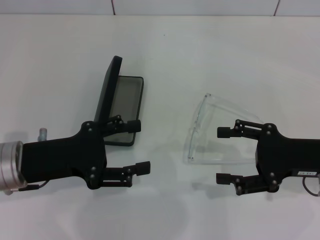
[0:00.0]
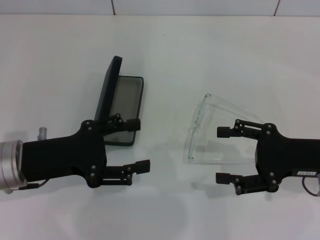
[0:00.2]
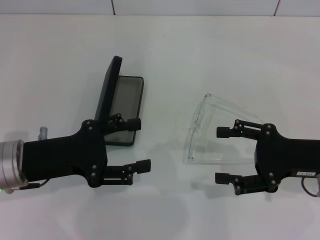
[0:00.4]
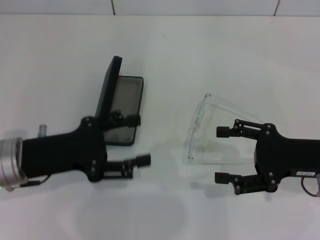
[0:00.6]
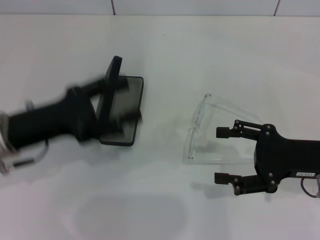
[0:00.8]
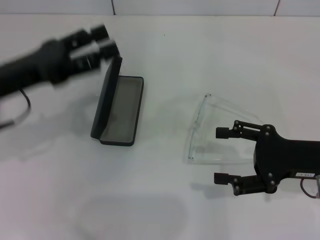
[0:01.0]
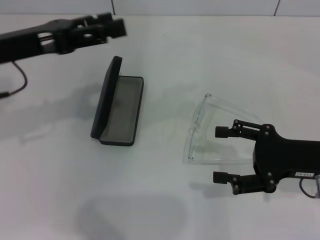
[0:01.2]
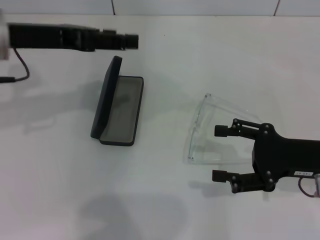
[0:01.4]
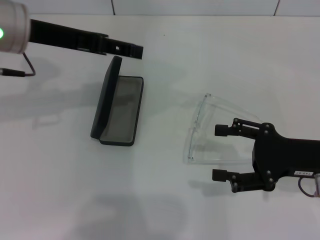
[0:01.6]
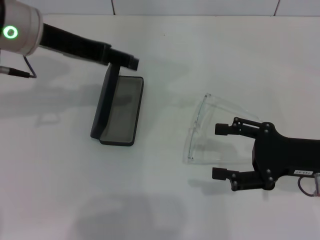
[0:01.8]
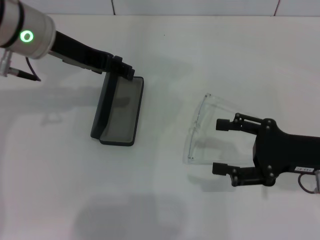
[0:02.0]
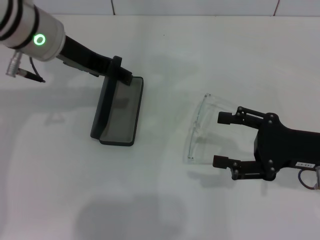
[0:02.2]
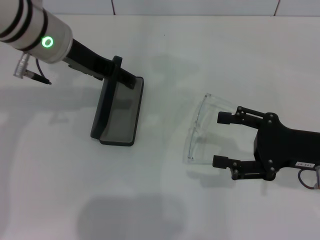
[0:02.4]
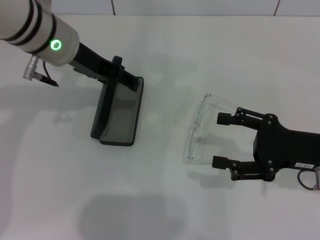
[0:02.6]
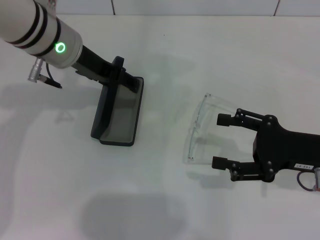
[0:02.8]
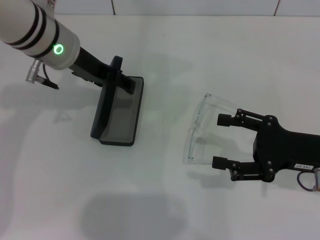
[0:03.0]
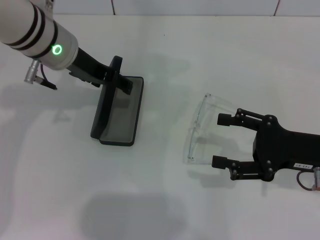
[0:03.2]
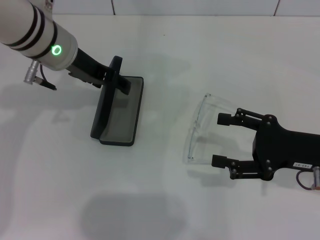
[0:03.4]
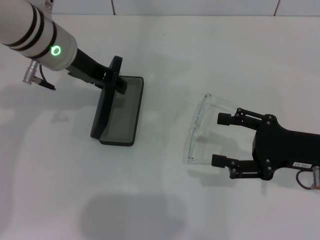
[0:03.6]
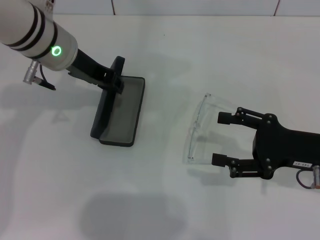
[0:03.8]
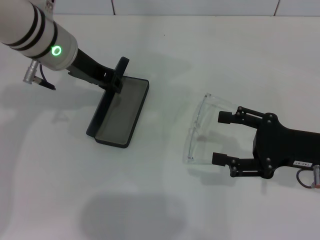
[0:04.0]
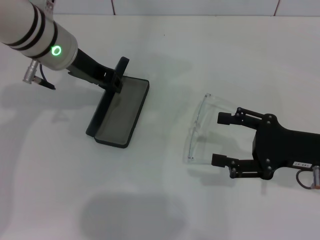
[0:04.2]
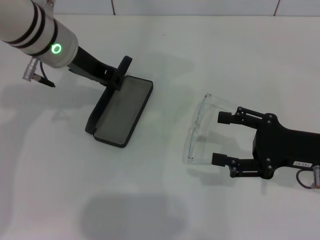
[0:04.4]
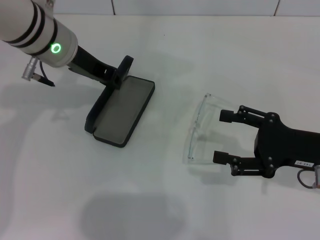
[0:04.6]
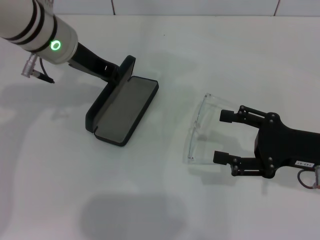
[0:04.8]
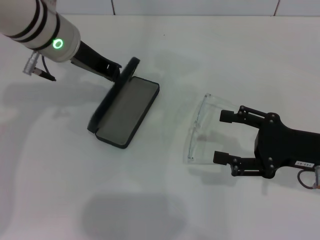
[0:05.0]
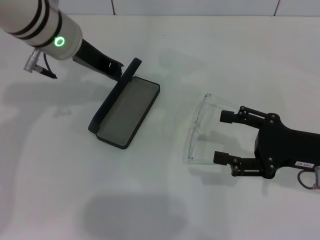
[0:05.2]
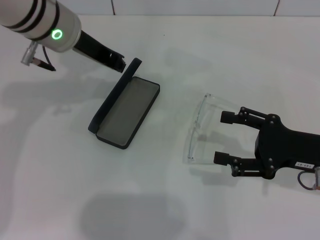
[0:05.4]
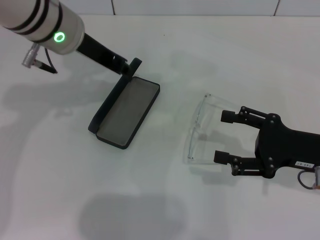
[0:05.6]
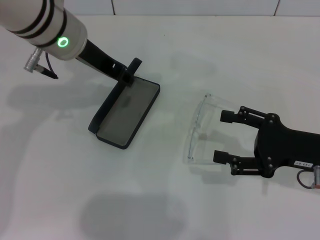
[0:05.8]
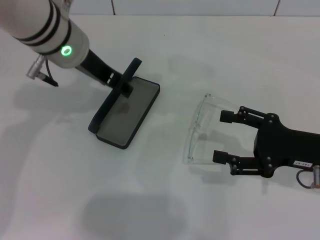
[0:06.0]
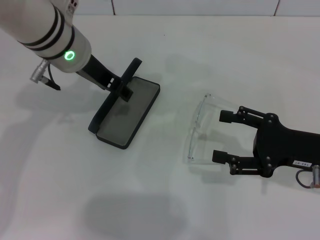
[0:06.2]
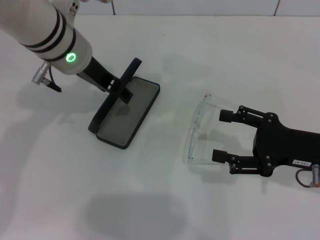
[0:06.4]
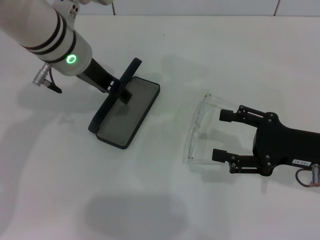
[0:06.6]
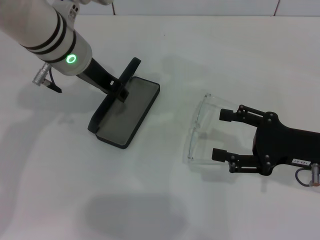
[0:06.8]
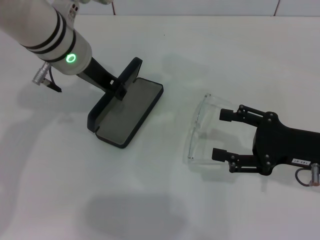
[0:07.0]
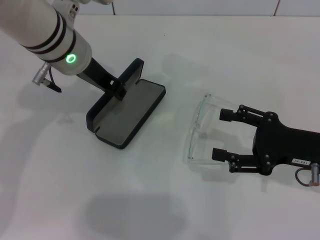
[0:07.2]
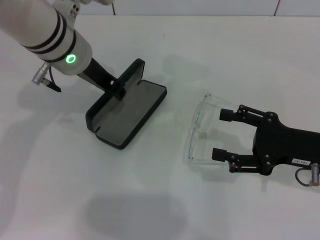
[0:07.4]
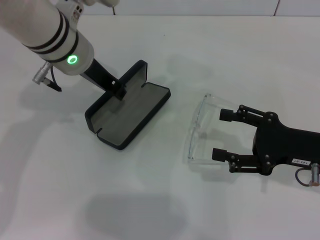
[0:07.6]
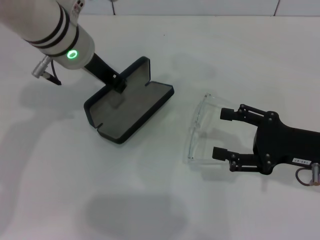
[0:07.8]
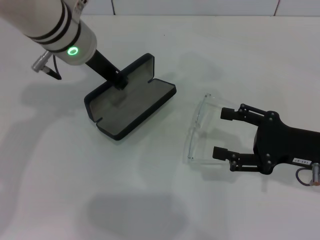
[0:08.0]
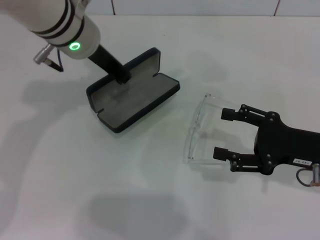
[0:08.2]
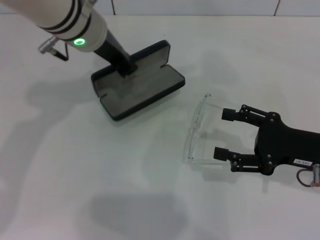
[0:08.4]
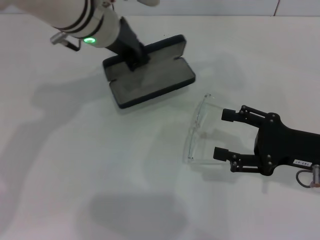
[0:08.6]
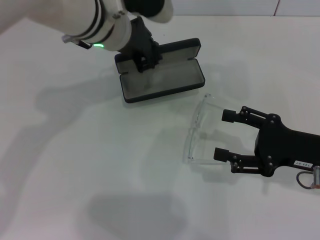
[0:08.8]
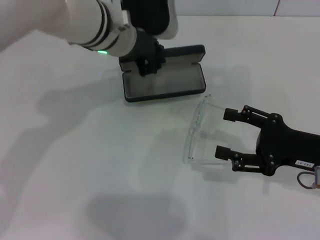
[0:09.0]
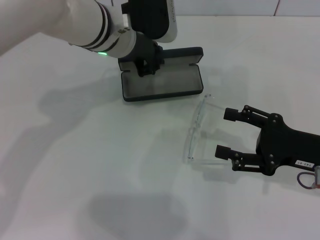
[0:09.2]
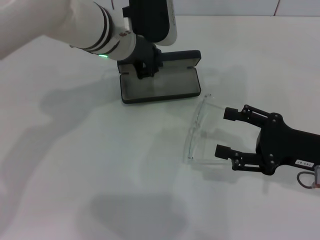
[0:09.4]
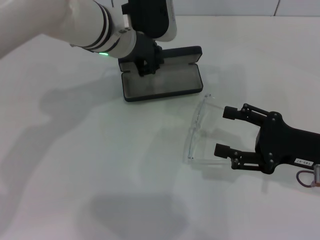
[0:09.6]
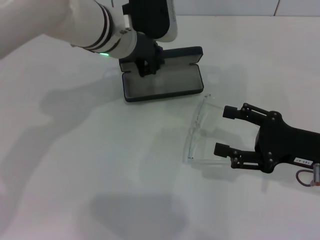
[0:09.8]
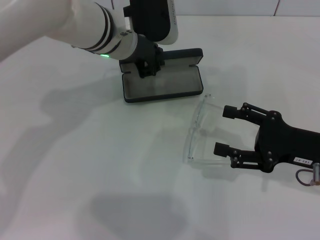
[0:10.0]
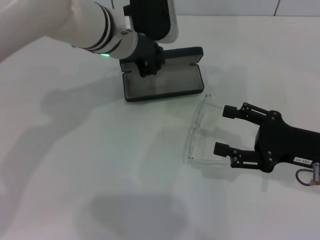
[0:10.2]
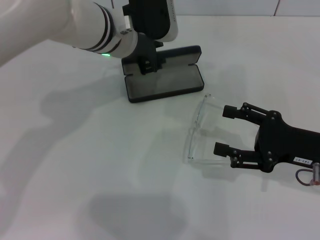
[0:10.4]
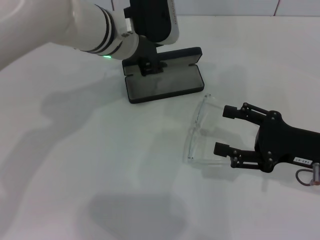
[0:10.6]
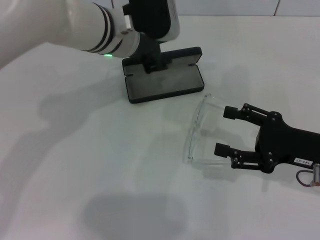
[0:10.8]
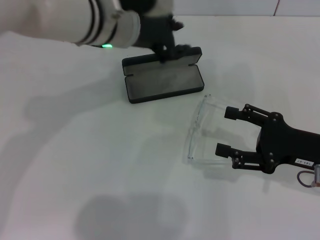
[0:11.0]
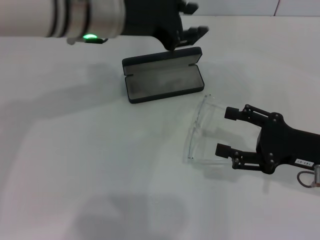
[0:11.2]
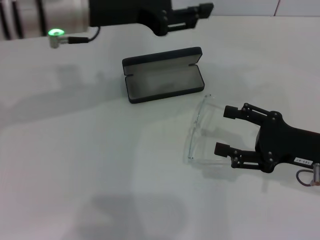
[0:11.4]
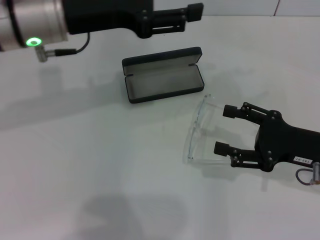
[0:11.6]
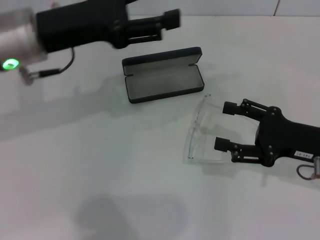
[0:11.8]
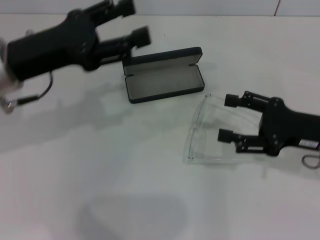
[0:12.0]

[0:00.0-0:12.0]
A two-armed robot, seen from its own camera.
Step, 0:00.0 to 0:04.2: Grab the glasses case with your left hand.
Step, 0:04.4 to 0:10.4: Place the glasses case in the center of the table with your left hand.
0:00.0 to 0:01.6: The left gripper goes approximately 20 cm upward and forward.
0:01.6 to 0:03.0: The left gripper shifts by approximately 10 cm.
0:03.0 to 0:04.4: The left gripper closes its fingers.
0:04.4 to 0:07.6: The grippers stay close to where they were, moving slightly.
0:09.0 to 0:10.4: The grippers move only a little.
0:10.4 to 0:12.0: The left gripper travels to the left and backward by approximately 15 cm, and opens.

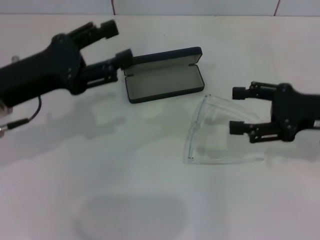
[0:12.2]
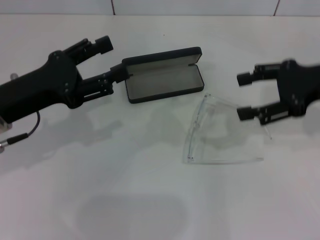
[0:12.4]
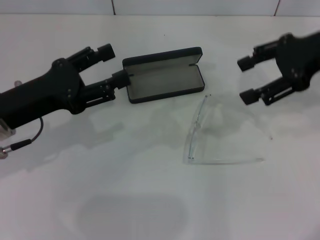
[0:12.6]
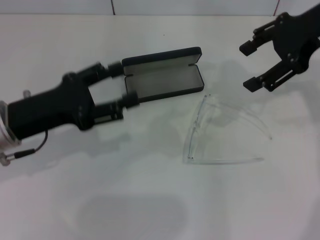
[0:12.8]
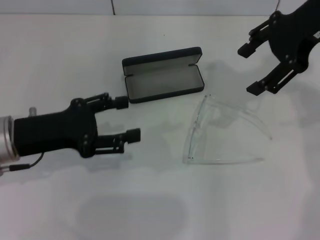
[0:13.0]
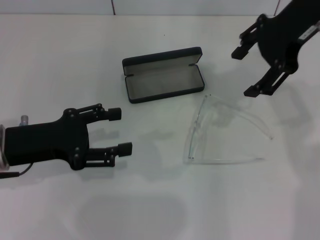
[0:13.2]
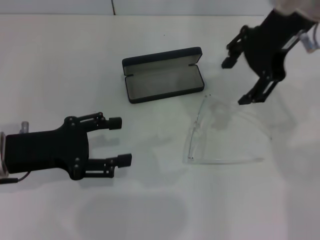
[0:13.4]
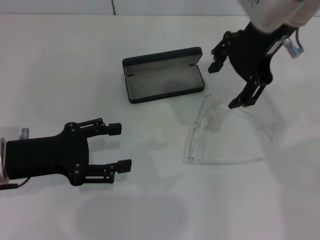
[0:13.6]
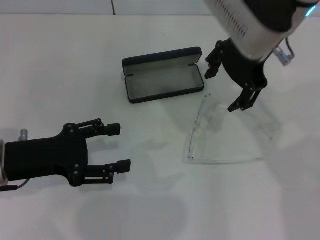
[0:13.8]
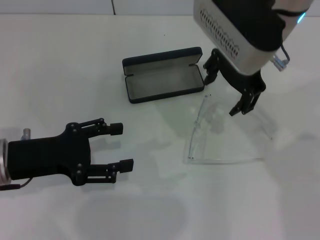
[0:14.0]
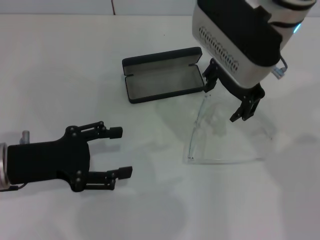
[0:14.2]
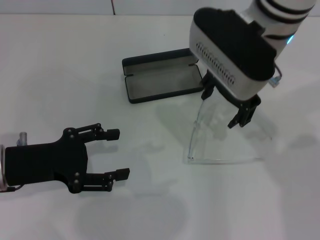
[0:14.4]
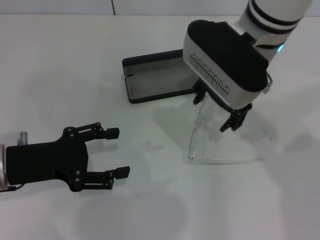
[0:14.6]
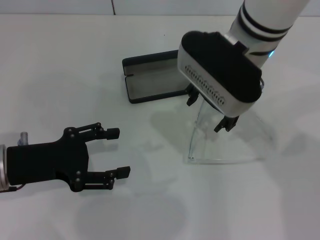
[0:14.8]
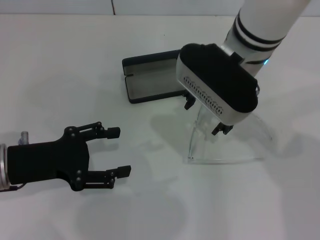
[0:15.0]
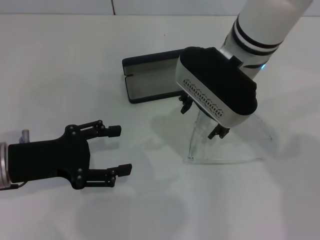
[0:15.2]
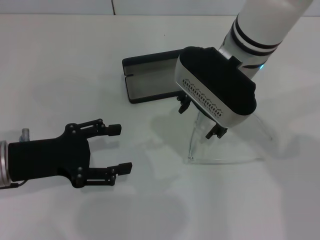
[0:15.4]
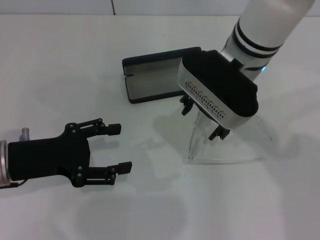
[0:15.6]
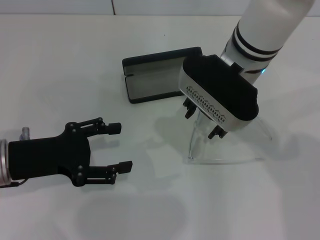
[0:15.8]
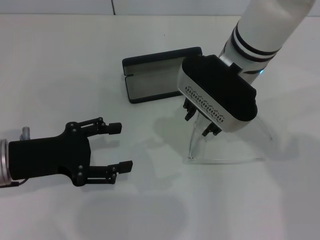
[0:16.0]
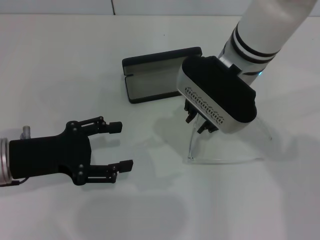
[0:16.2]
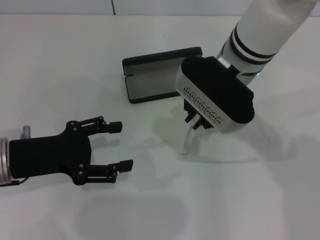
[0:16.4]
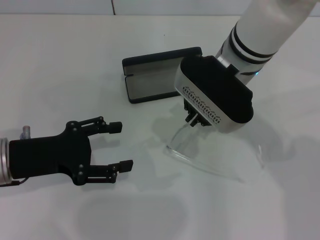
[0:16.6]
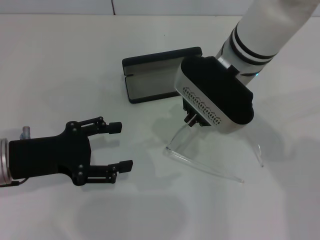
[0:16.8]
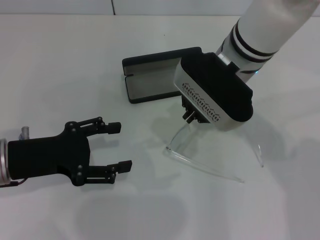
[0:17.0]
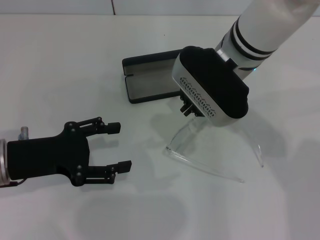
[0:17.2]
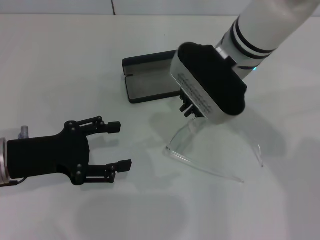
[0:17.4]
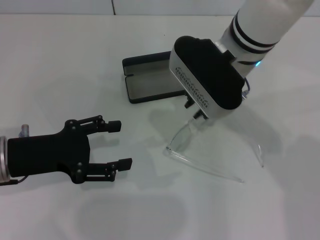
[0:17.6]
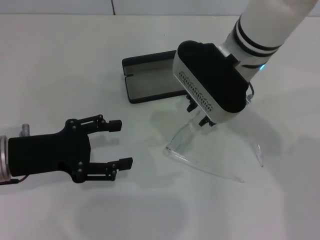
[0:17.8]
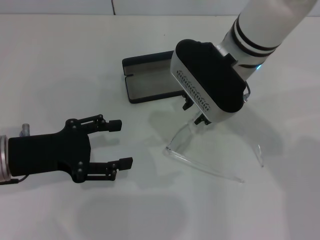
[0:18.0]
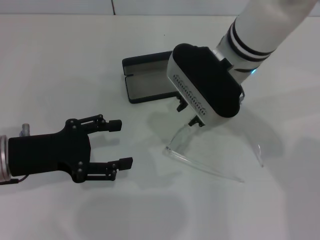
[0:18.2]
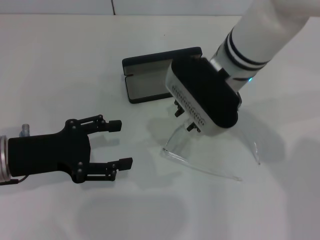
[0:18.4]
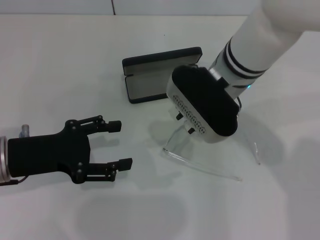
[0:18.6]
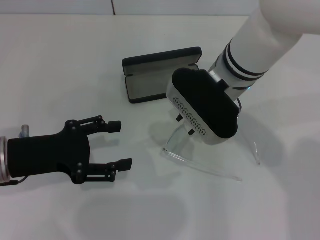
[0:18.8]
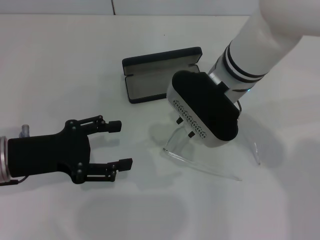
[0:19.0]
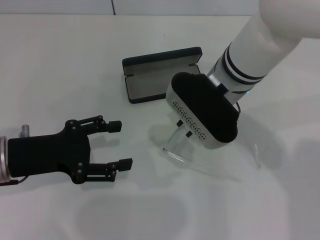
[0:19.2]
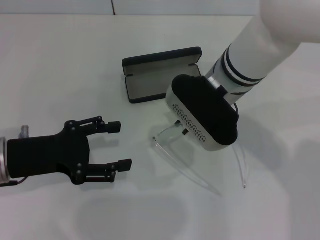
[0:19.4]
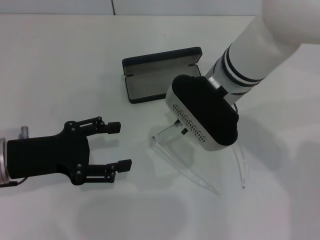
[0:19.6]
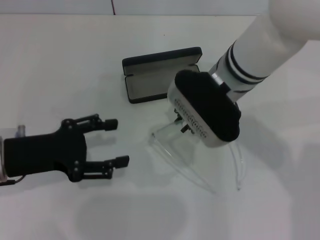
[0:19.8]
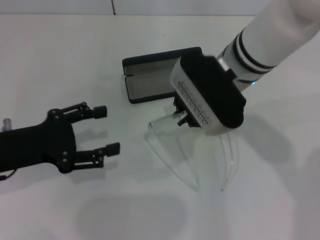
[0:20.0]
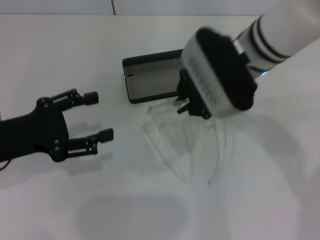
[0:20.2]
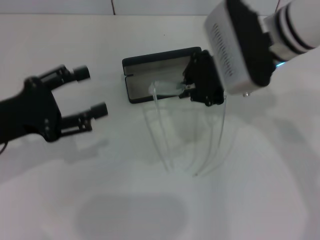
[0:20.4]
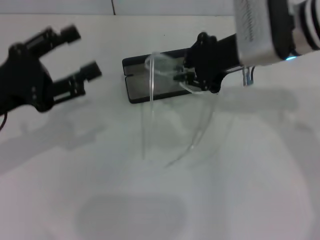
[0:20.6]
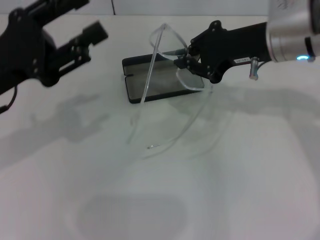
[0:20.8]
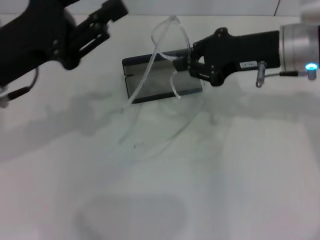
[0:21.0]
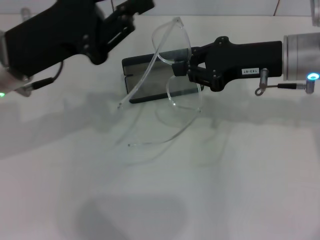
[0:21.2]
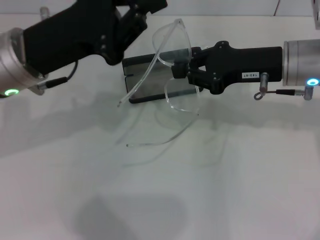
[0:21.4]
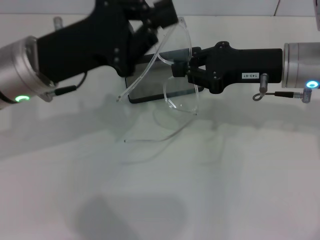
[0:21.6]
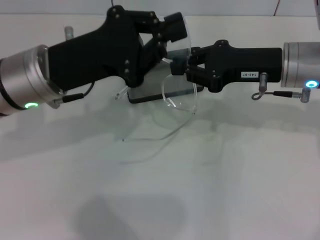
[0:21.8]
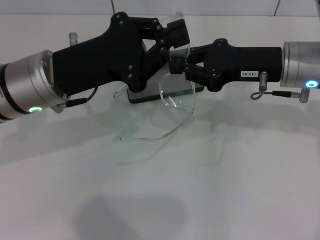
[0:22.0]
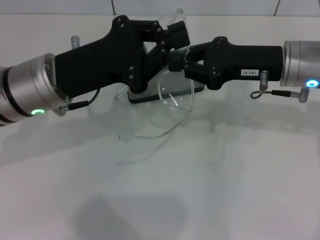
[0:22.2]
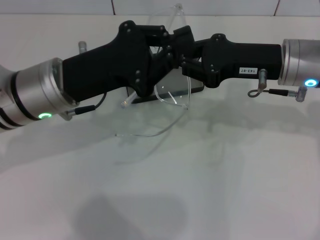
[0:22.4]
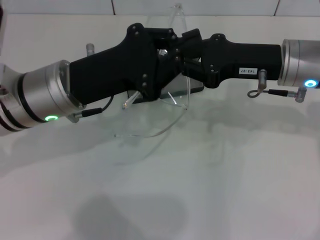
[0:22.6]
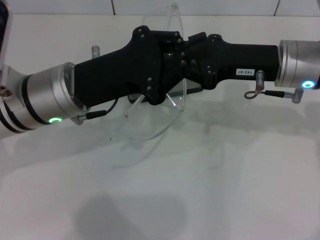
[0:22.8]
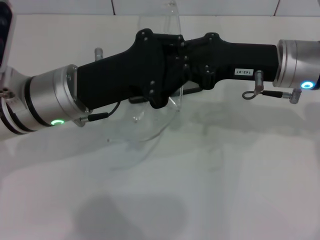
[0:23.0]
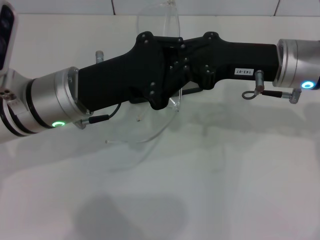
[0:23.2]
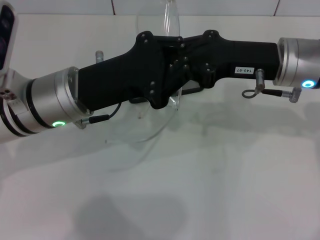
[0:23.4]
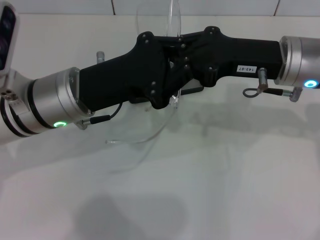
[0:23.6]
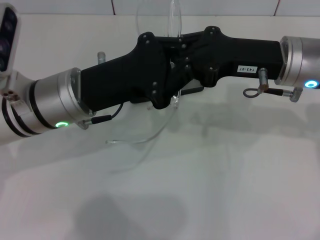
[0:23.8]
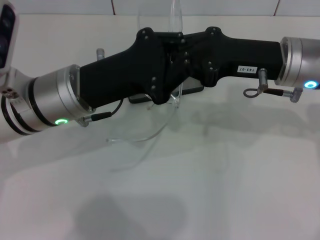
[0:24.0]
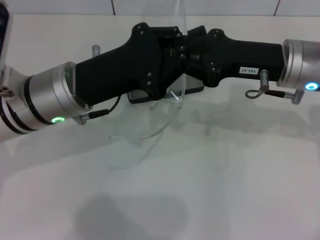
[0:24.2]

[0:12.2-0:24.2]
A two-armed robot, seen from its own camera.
Step, 0:12.2 to 0:19.2: Grab the eyeglass frame with your right hand.
0:12.2 to 0:13.8: The right gripper is displaced to the left, upward and forward by approximately 25 cm. Meanwhile the left gripper goes roughly 5 cm downward.
0:13.8 to 0:15.2: The right gripper heads downward, covering roughly 5 cm.
0:15.2 to 0:16.6: The right gripper closes up.
0:16.6 to 0:19.8: The grippers make only small movements.
0:19.8 to 0:21.2: The left gripper shifts approximately 10 cm upward and forward, and closes up; the right gripper goes some 10 cm to the right.
0:21.2 to 0:22.6: The left gripper shifts by some 5 cm, and closes.
0:22.6 to 0:24.2: There are only small adjustments of the grippers.
